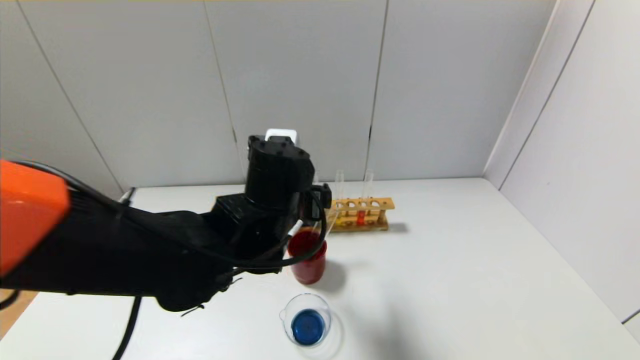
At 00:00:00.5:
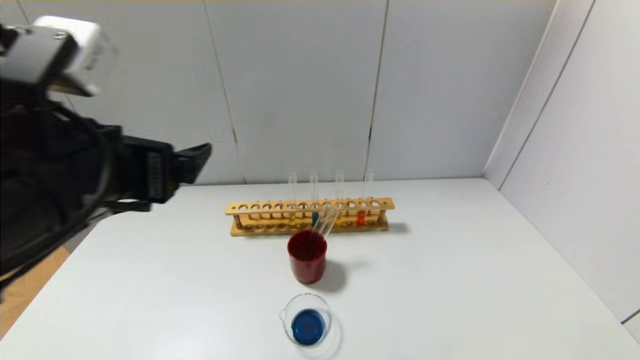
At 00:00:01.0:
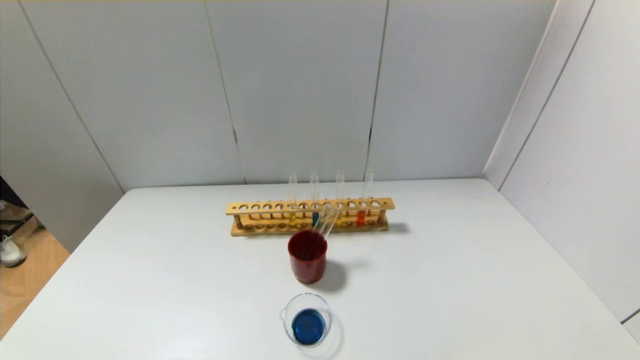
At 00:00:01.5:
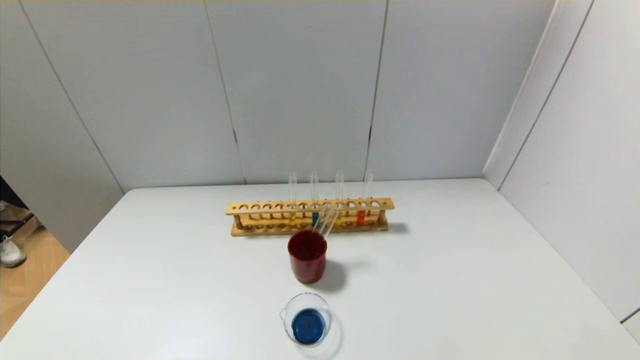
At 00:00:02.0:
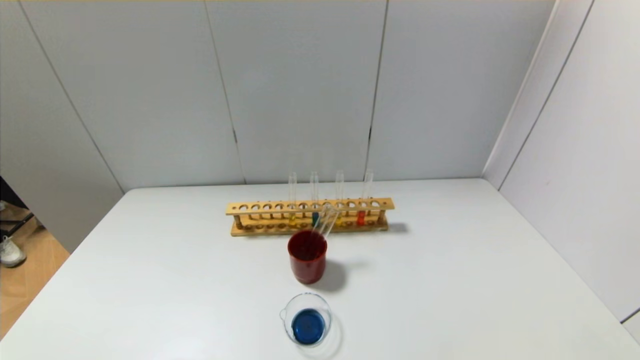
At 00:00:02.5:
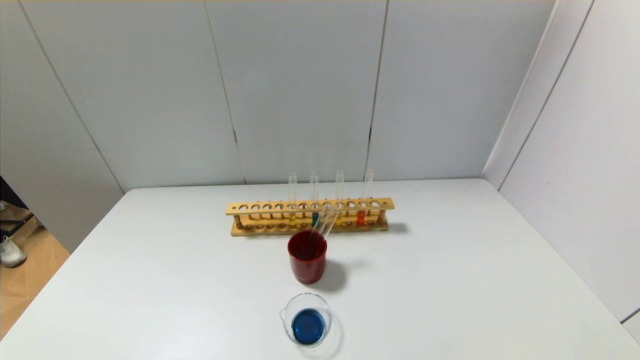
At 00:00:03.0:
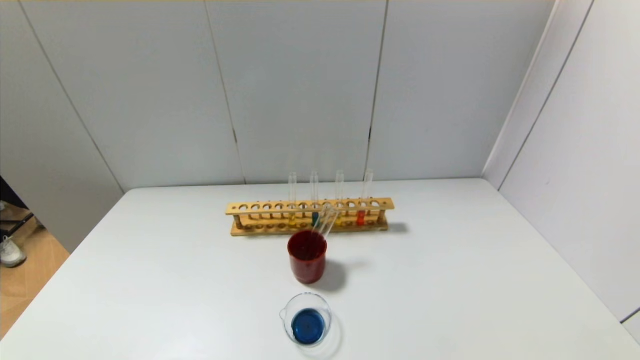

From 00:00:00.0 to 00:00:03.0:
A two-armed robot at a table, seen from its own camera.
From 00:00:00.0 to 00:00:01.5: The left gripper travels backward and to the left by about 40 cm.
